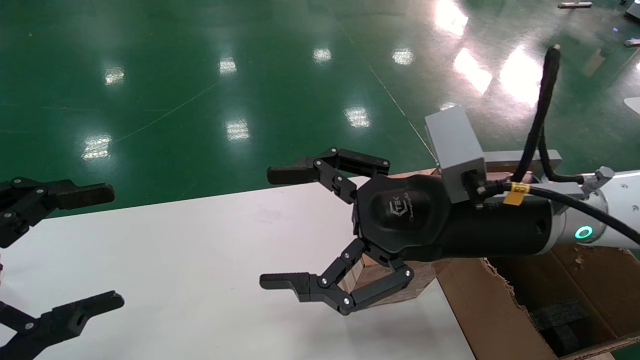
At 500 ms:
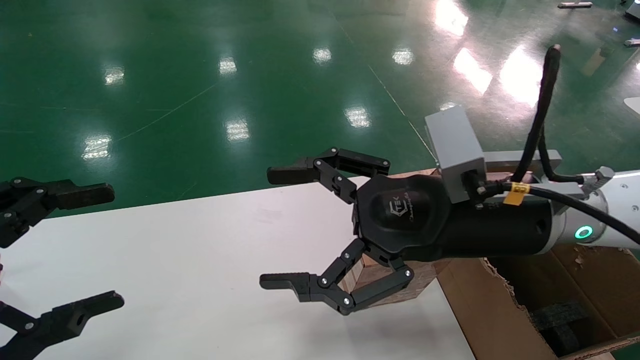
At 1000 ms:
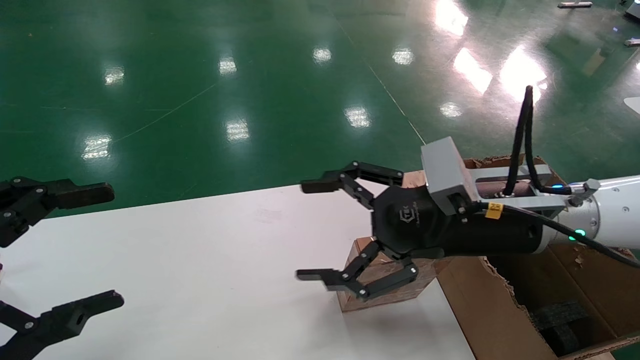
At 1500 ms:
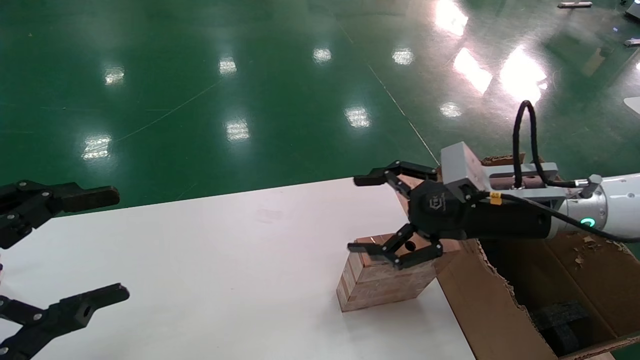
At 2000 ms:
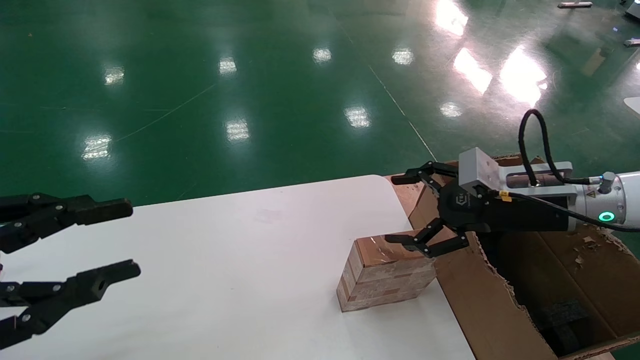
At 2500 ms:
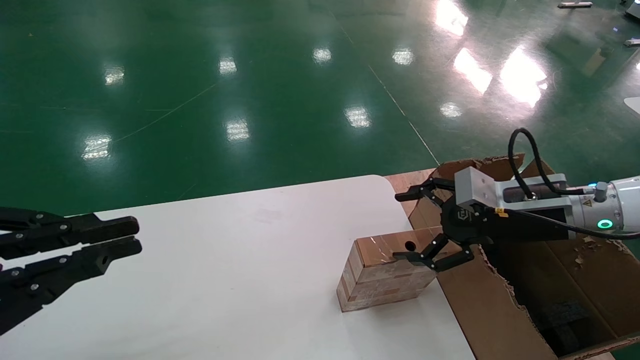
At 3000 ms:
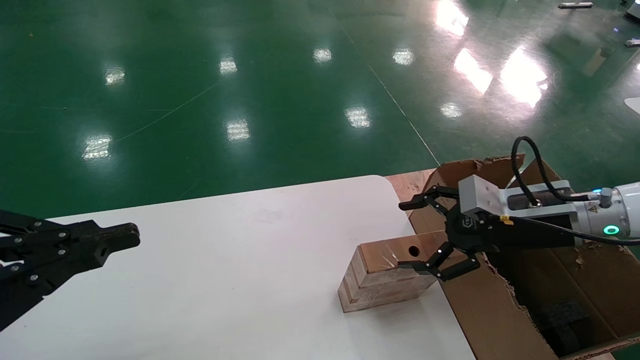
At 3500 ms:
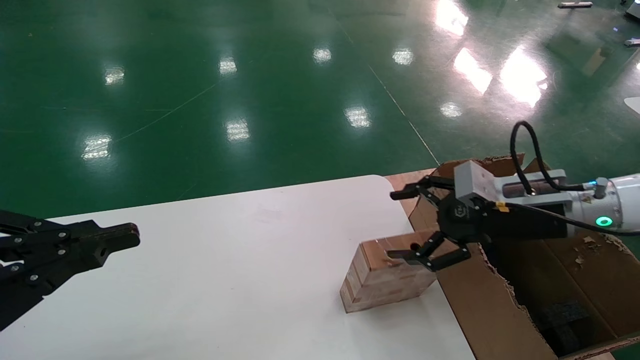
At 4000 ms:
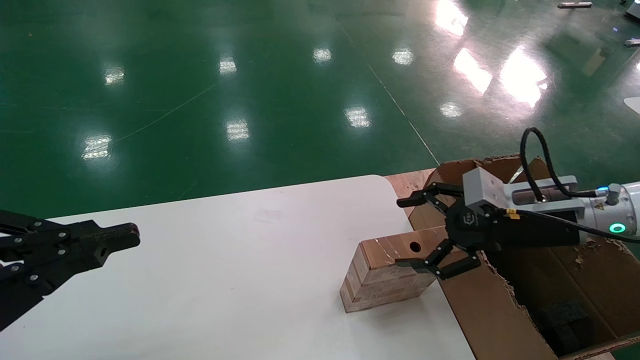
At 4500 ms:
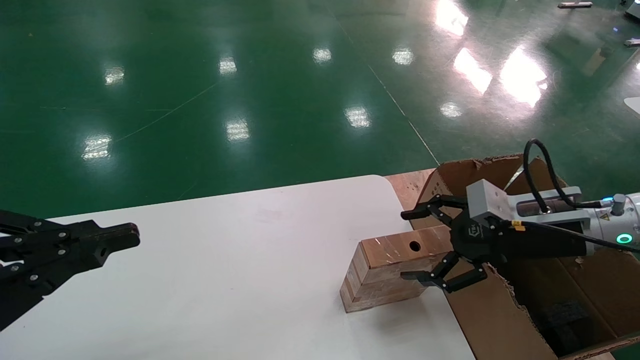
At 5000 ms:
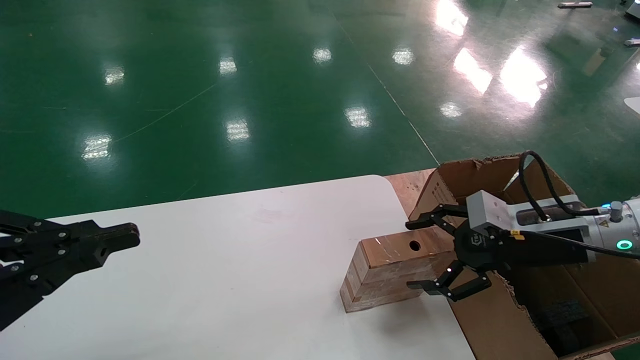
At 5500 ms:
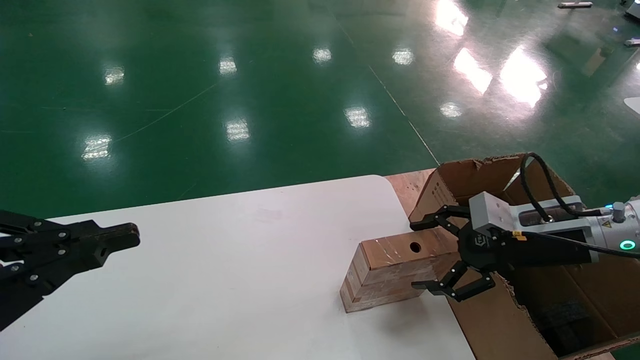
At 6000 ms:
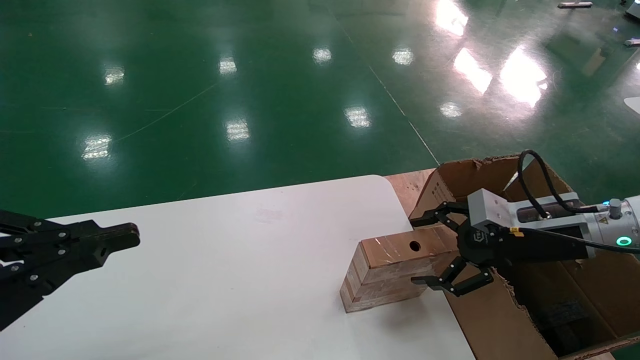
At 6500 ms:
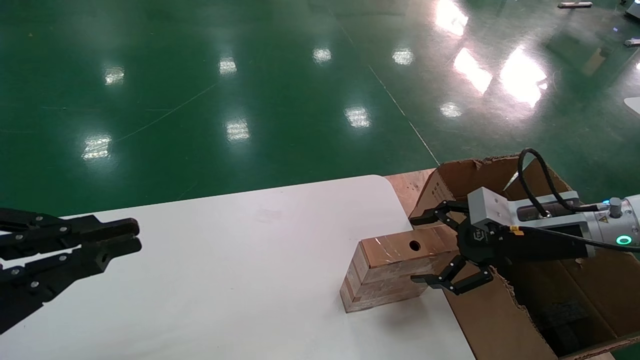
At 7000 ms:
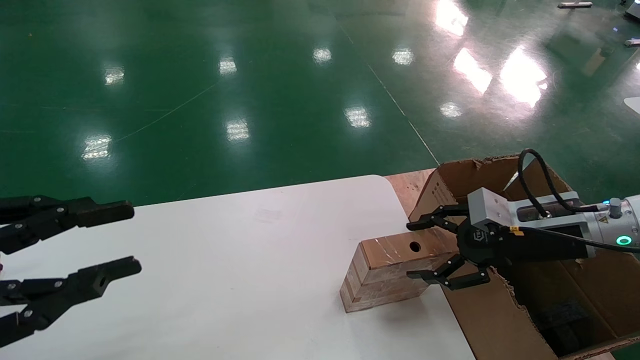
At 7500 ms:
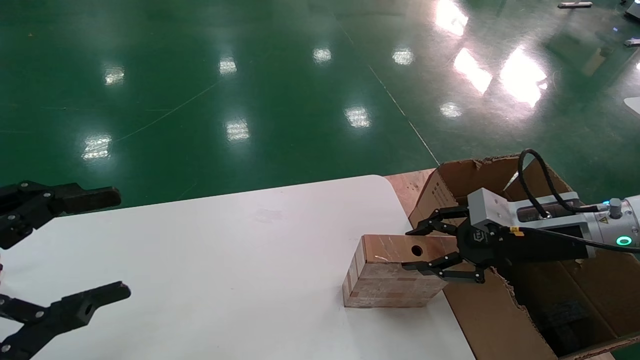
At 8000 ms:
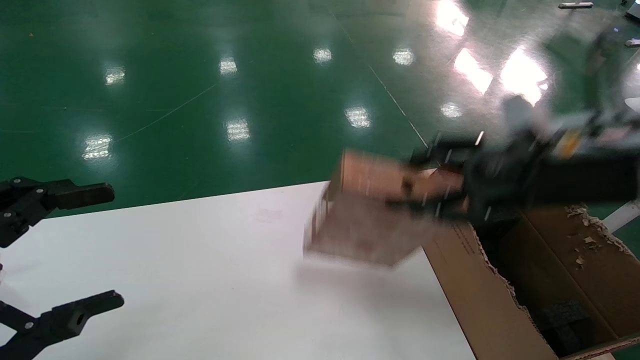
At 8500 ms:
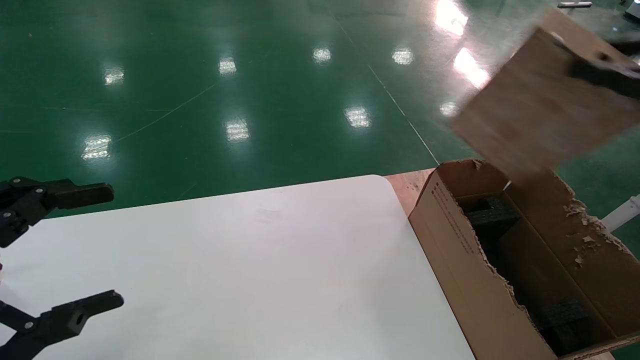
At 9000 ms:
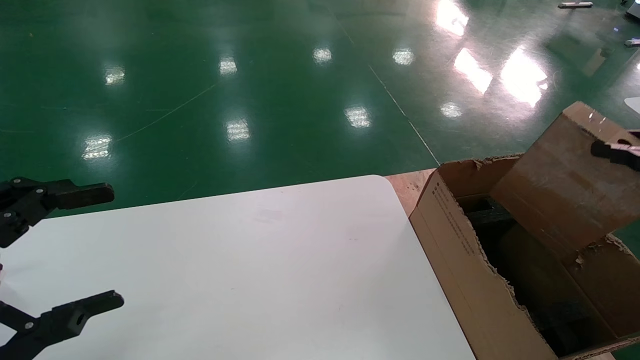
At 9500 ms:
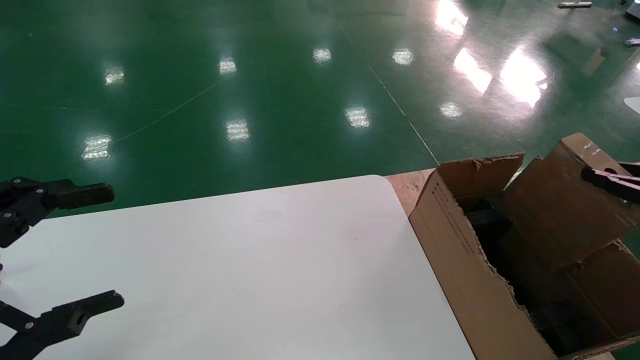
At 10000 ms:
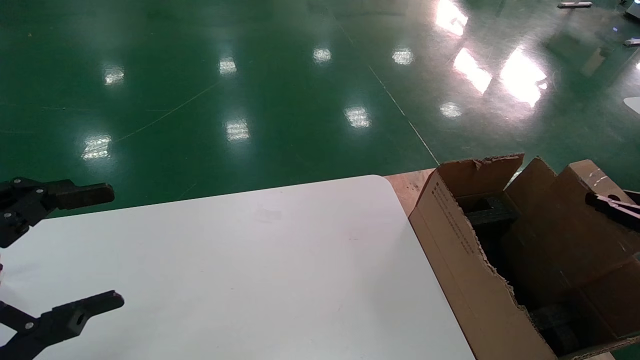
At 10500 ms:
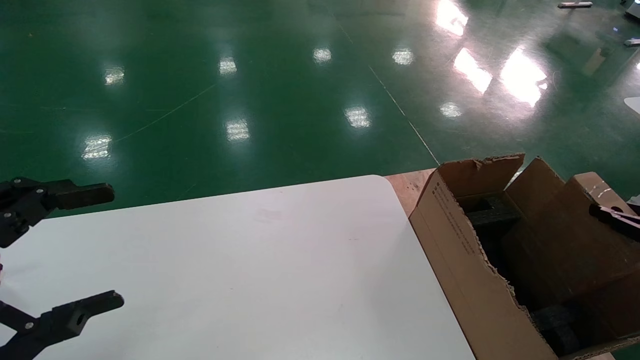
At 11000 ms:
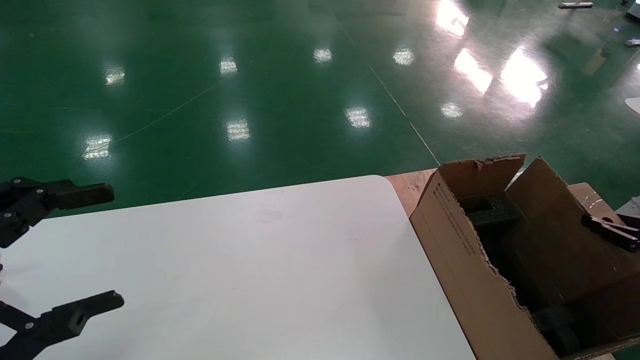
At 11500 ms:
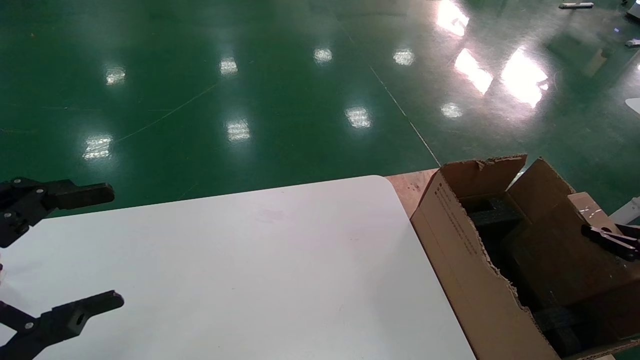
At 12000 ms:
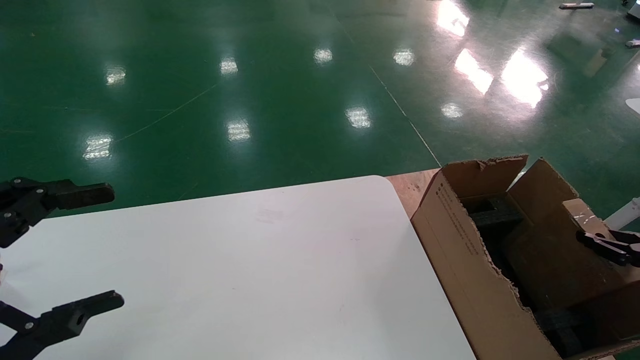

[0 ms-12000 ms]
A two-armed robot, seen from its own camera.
Task of the whole recording: put the box on the table into the big box.
Step, 1500 ms to 7500 ms: Pick up the mouse and the power cord paper box.
0 ms to 2000 ms: The left gripper closes. The right gripper goes roughly 15 cm to the right and forward.
2000 ms to 4000 ms: The left gripper closes its fingers.
4000 ms to 6000 ms: The grippers move only a little.
6000 ms to 8000 ms: The right gripper shifts about 10 cm upward, and closes; the left gripper opens.
8000 ms to 10000 ms: The right gripper heads to the right and downward, covering approximately 25 cm.
10000 ms to 12000 ms: The right gripper is displaced downward by some 10 cm.

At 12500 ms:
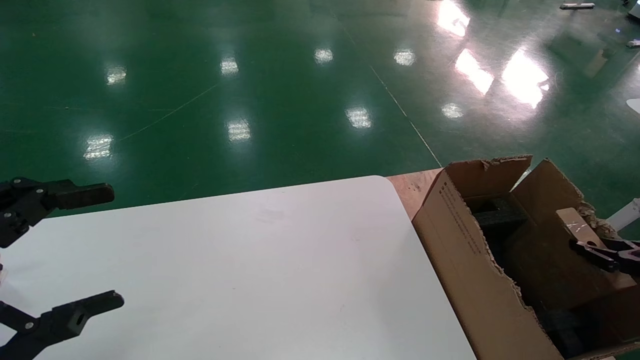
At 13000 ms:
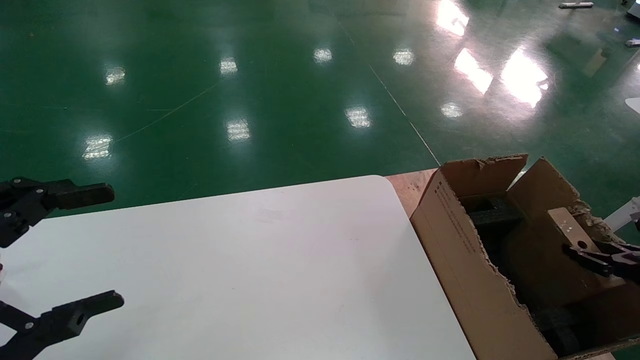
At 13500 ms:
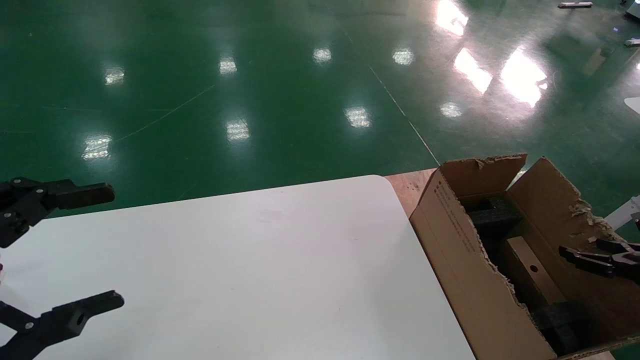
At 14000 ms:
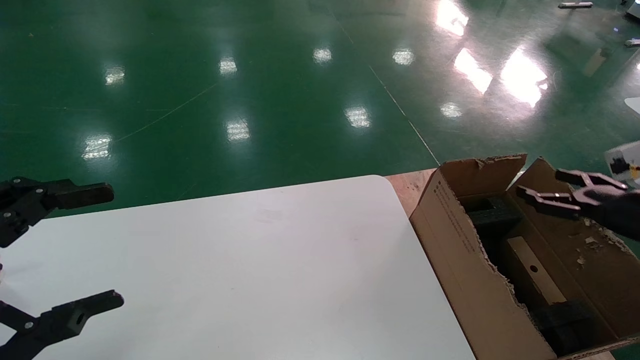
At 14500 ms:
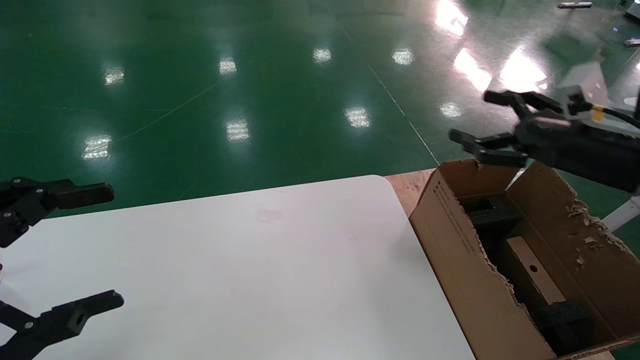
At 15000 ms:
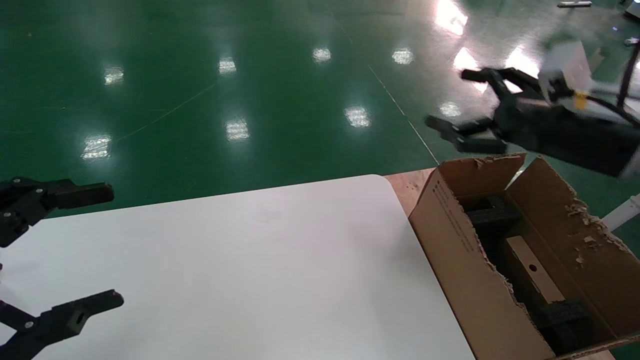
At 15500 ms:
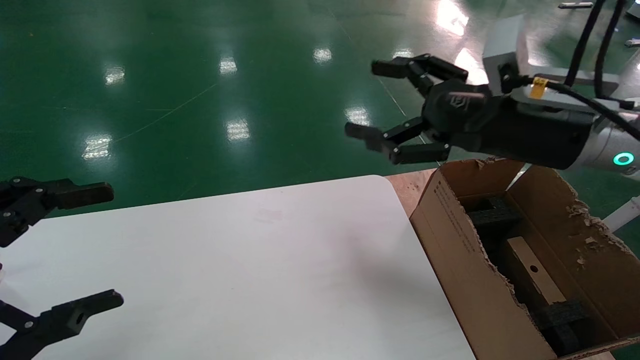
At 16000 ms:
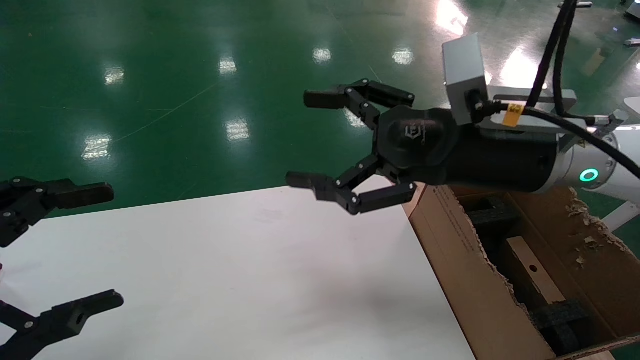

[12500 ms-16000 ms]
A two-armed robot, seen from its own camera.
Task of the whole recording: put the box on the table into the big box.
12500 ms to 14500 ms: The right gripper heads upward and to the left, covering about 25 cm, and opens up.
14500 ms to 16000 ms: The right gripper travels to the left by roughly 20 cm.
